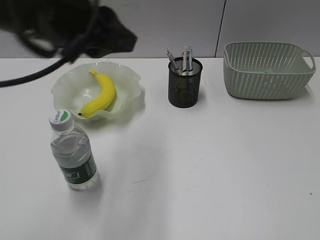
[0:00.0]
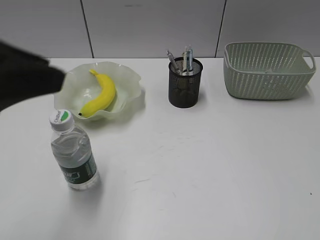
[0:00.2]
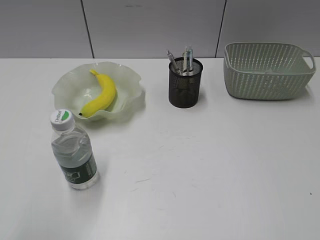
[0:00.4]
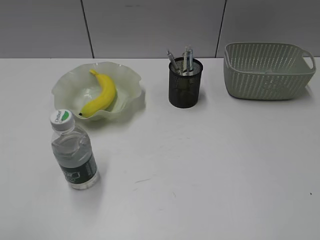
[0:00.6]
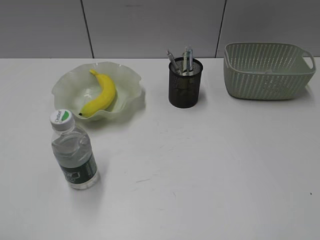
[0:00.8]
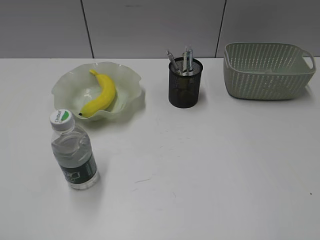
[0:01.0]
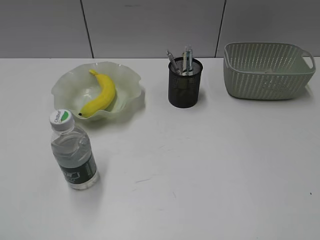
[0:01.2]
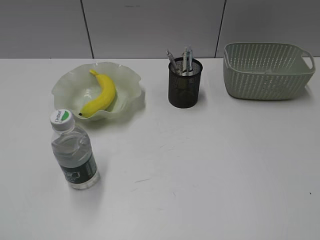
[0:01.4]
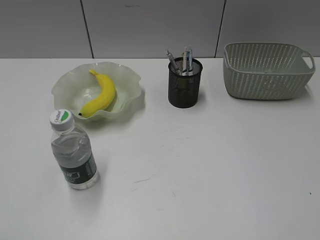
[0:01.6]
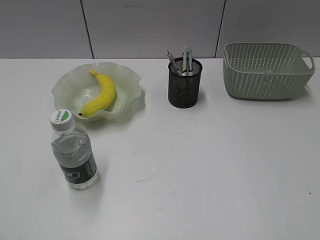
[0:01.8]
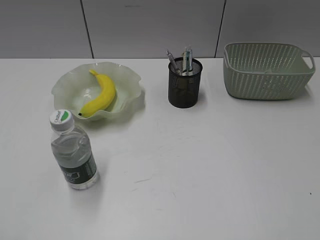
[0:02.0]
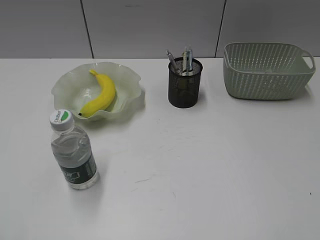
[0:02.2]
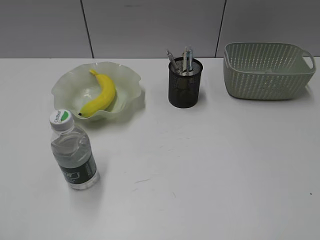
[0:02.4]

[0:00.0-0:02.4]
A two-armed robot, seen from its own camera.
0:00.0 to 0:01.2: The left gripper shifts roughly 30 cm backward and to the left.
